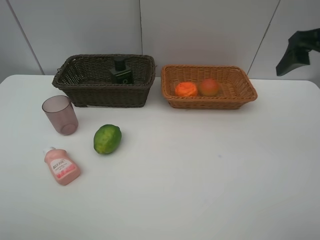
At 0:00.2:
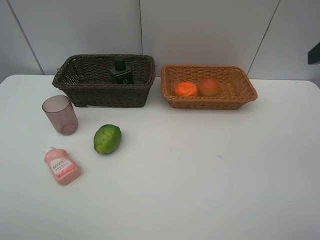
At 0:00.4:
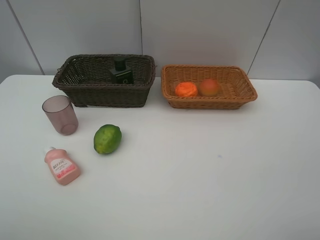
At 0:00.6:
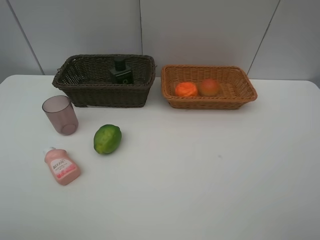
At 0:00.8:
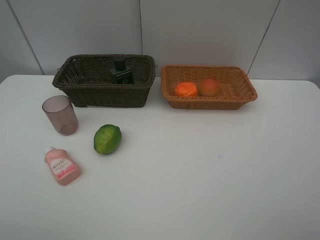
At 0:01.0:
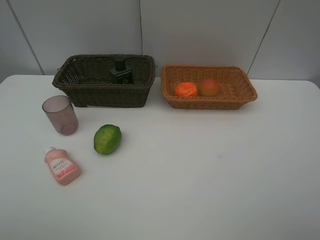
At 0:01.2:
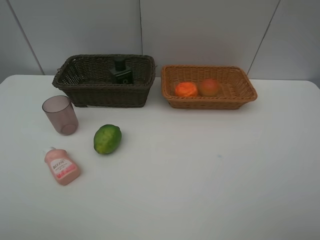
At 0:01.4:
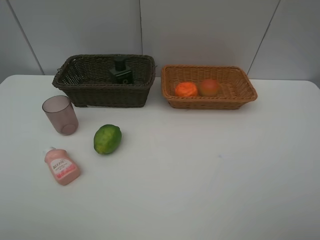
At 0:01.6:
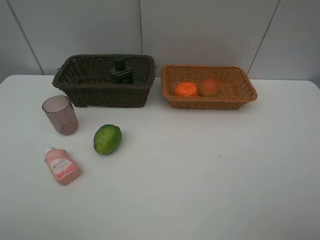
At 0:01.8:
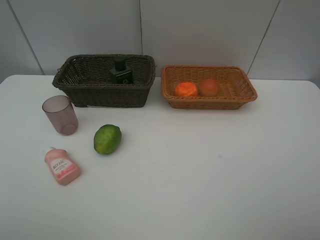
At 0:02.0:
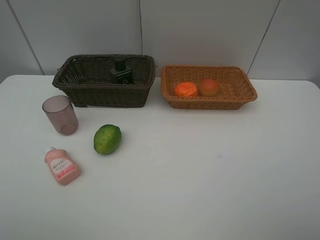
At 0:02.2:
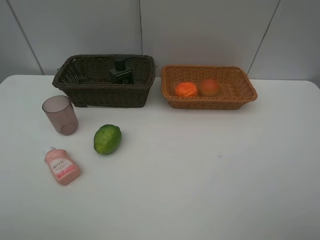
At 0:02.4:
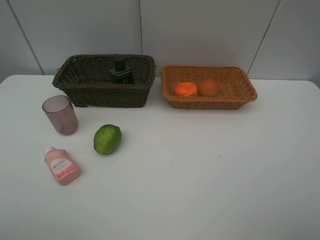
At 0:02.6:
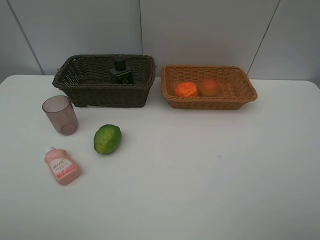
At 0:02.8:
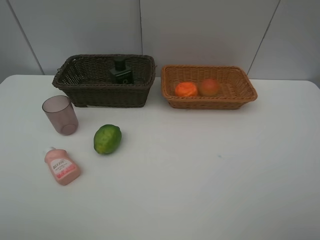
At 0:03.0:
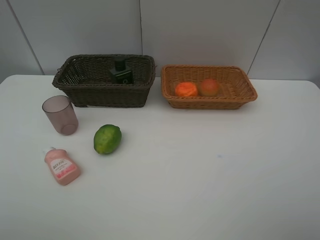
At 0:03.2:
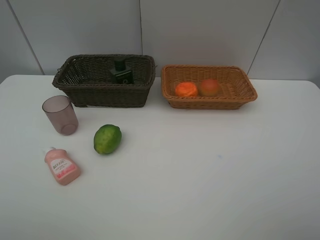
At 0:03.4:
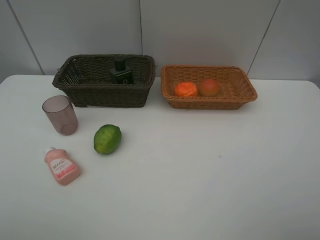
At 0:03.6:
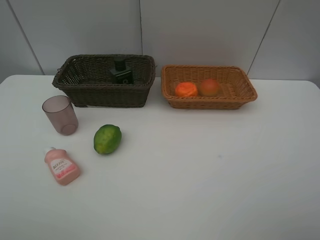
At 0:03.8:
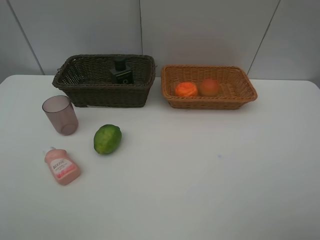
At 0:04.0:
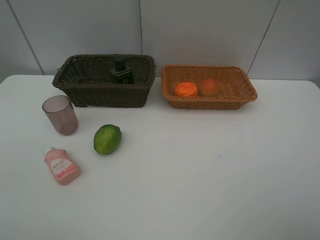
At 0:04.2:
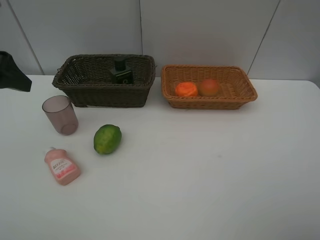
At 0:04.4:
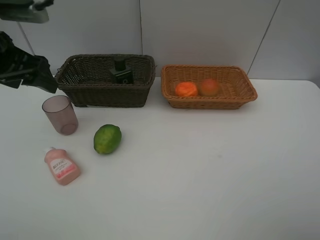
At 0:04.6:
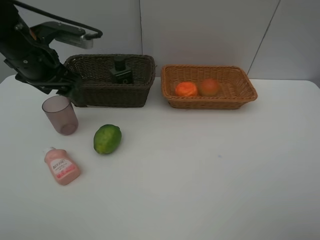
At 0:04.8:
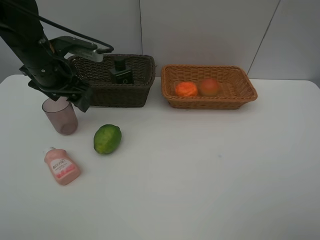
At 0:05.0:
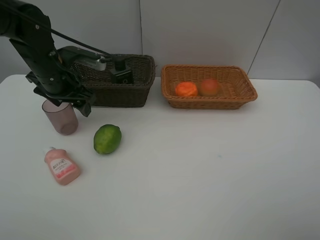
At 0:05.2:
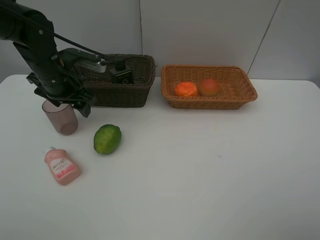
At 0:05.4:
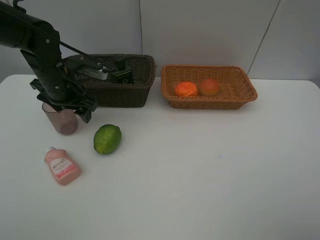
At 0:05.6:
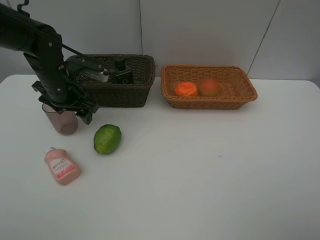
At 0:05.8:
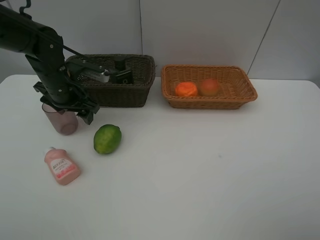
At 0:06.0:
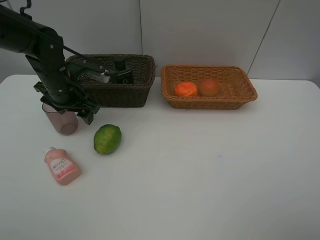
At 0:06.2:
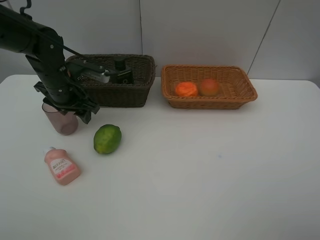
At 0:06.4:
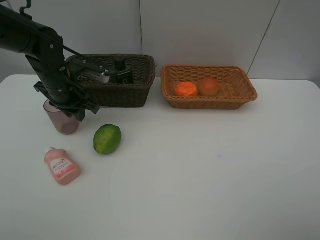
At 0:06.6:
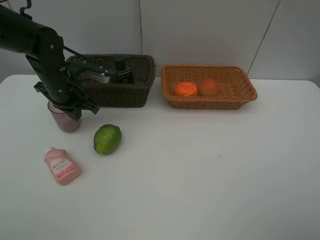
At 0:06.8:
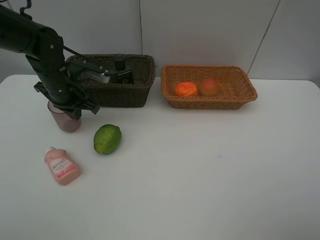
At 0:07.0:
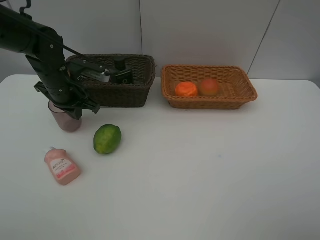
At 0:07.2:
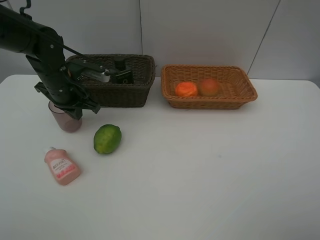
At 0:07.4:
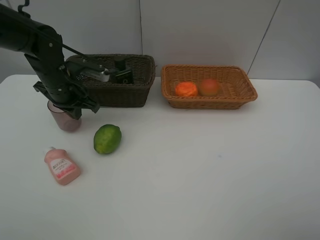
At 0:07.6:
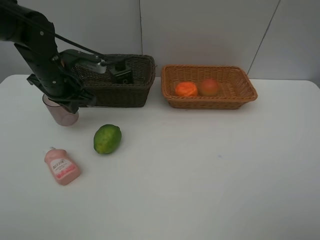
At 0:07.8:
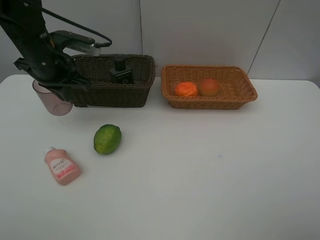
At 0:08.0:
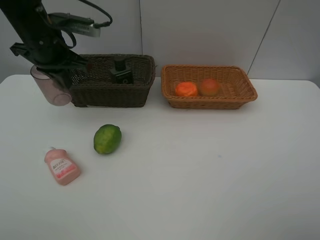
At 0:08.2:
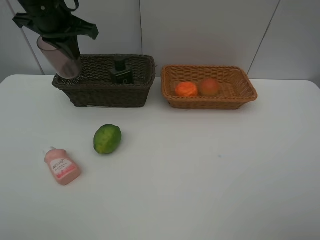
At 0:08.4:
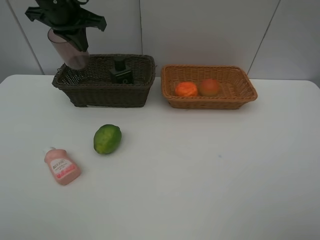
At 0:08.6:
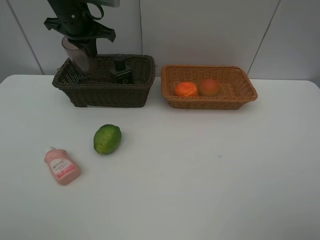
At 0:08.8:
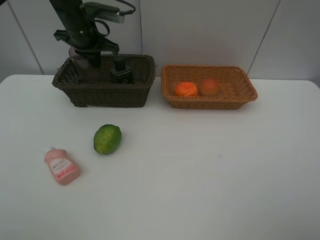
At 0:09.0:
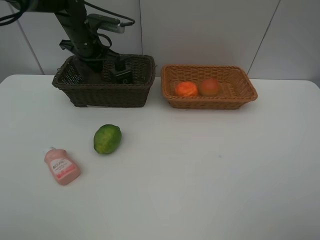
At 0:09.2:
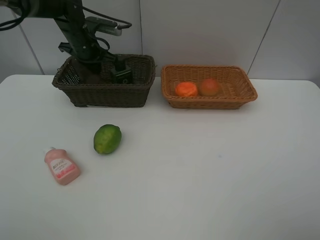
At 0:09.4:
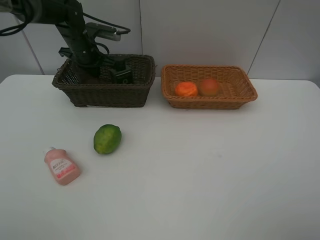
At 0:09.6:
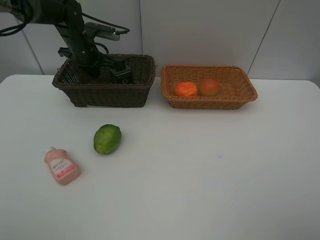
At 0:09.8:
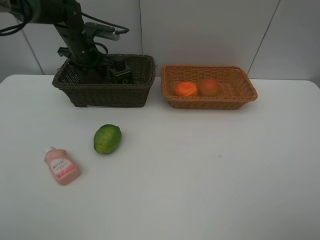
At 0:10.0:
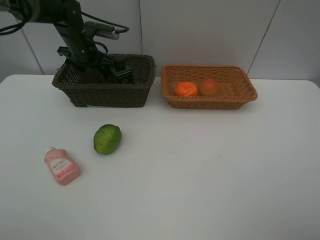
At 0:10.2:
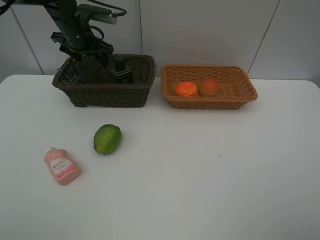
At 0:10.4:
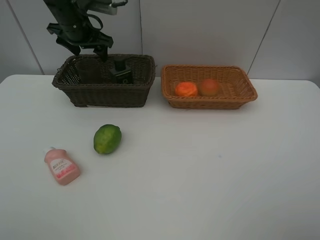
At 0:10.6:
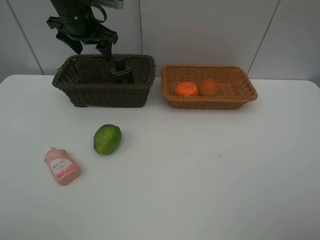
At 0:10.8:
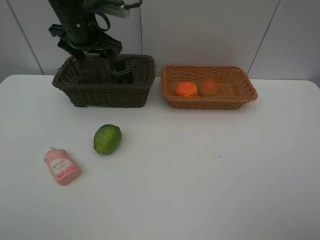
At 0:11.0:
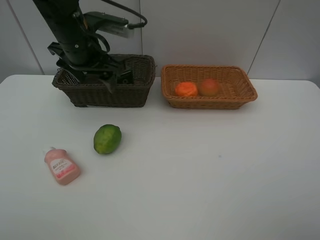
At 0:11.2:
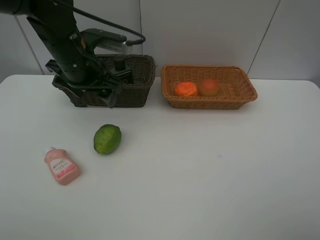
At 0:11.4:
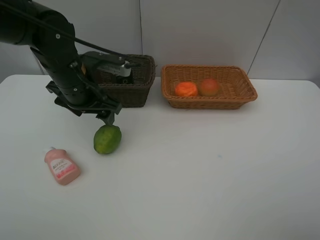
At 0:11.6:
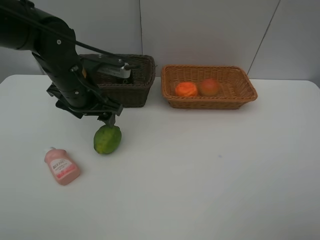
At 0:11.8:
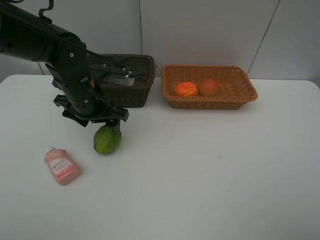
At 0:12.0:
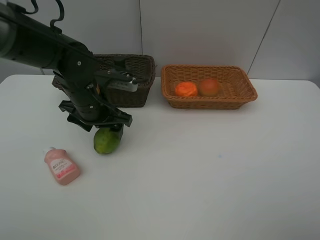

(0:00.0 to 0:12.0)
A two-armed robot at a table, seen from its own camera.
Task of the whole recording: place multiple objects separately in different baskets.
0:00.0 - 0:01.6: The right gripper moves backward, roughly 25 cm.
0:01.6 - 0:03.0: The two grippers keep their place.
0:03.0 - 0:04.4: The left gripper moves forward, some 30 cm.
0:04.4 - 0:06.0: The left gripper shifts some 15 cm downward and forward.
0:06.0 - 0:07.6: The left gripper closes.
0:07.6 - 0:09.0: The left gripper heads forward, covering approximately 15 cm.
0:09.0 - 0:10.4: The left gripper goes roughly 5 cm upward, and opens.
0:10.4 - 0:12.0: The left gripper shifts some 20 cm backward and downward.

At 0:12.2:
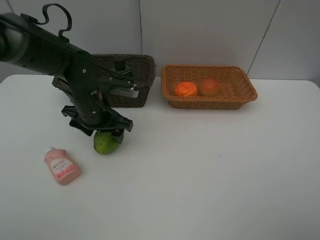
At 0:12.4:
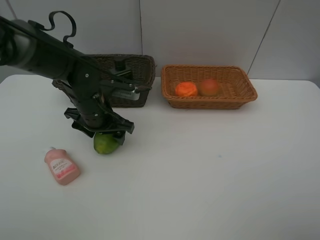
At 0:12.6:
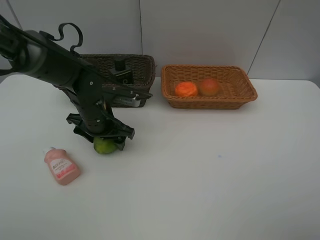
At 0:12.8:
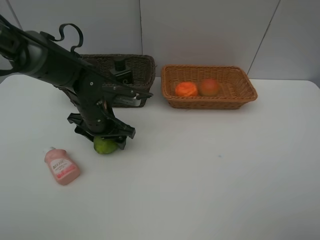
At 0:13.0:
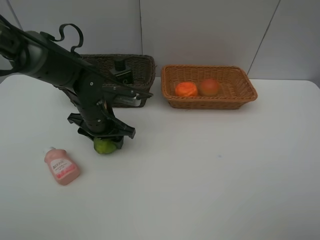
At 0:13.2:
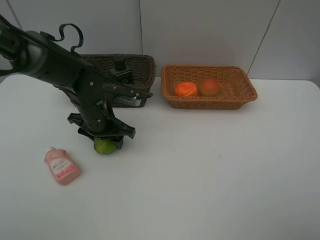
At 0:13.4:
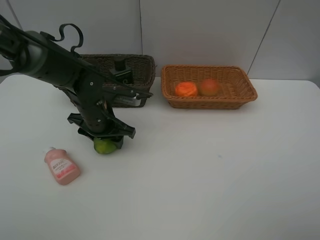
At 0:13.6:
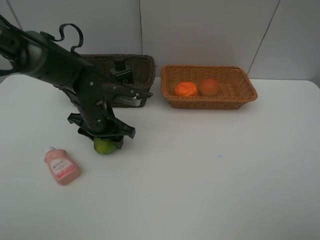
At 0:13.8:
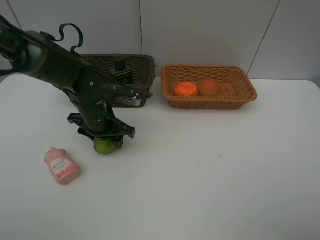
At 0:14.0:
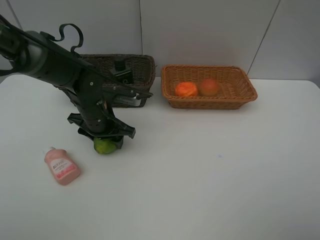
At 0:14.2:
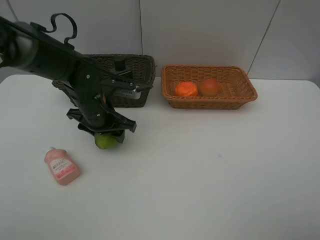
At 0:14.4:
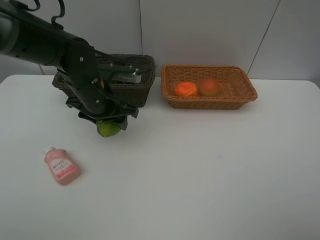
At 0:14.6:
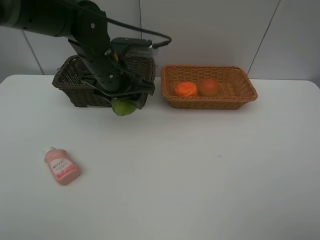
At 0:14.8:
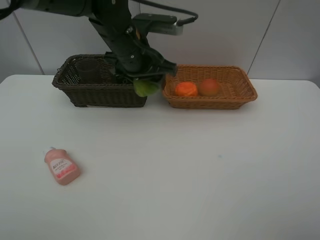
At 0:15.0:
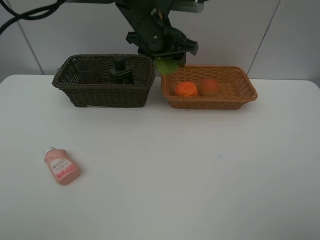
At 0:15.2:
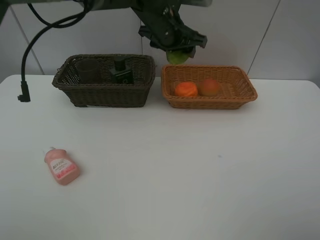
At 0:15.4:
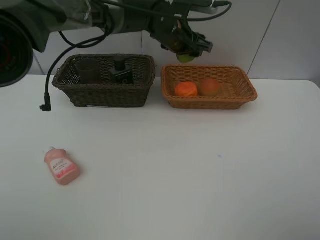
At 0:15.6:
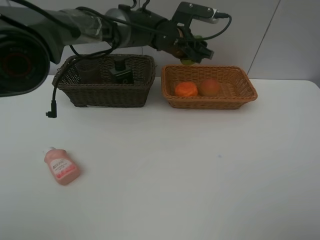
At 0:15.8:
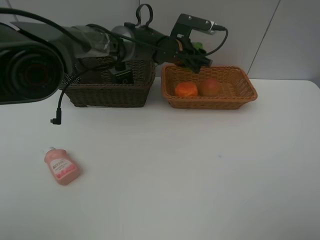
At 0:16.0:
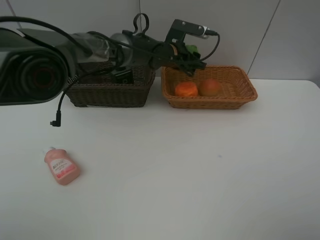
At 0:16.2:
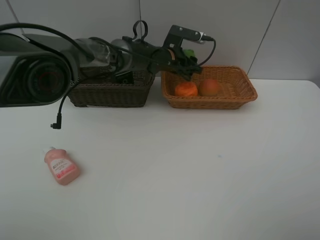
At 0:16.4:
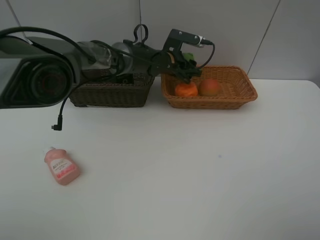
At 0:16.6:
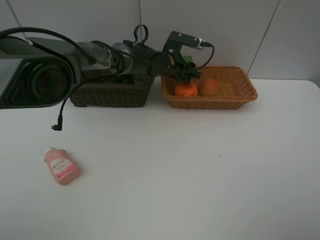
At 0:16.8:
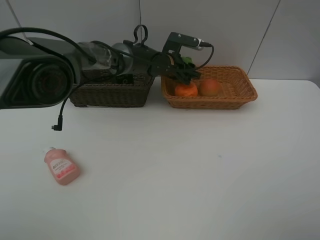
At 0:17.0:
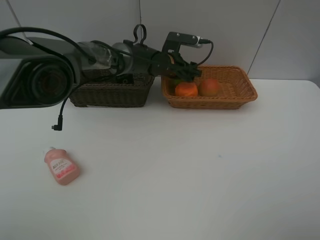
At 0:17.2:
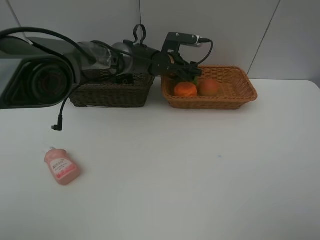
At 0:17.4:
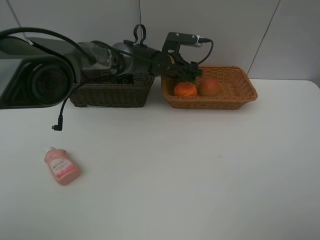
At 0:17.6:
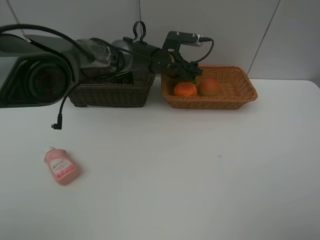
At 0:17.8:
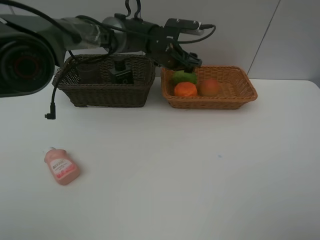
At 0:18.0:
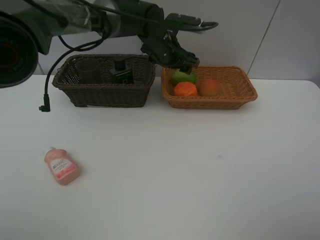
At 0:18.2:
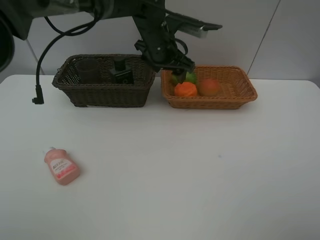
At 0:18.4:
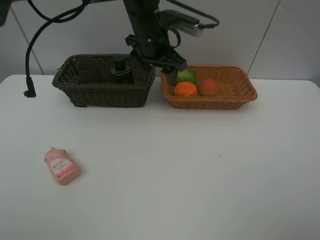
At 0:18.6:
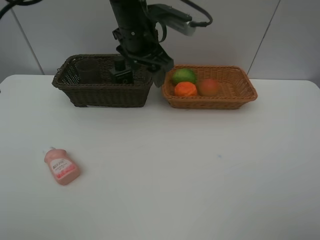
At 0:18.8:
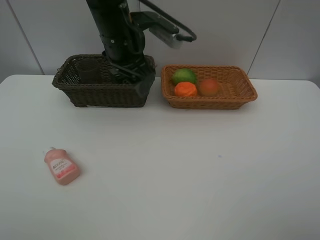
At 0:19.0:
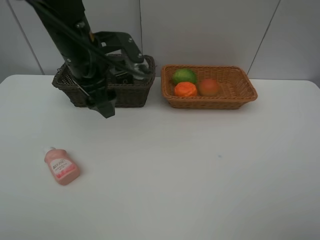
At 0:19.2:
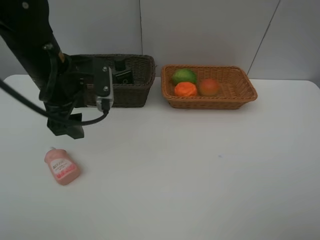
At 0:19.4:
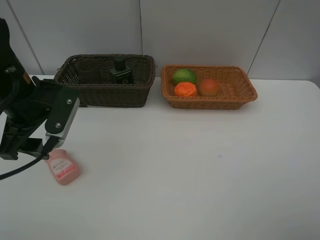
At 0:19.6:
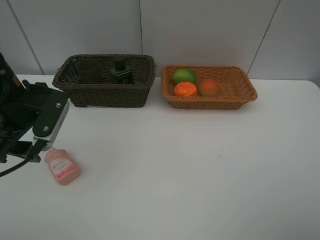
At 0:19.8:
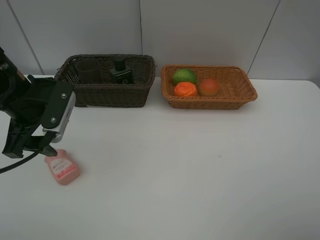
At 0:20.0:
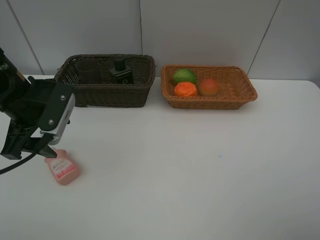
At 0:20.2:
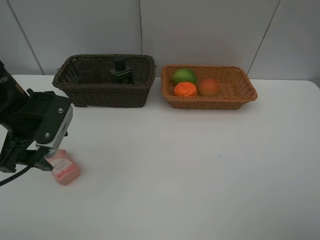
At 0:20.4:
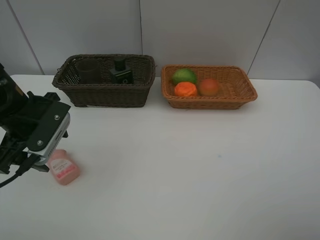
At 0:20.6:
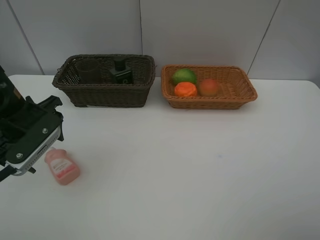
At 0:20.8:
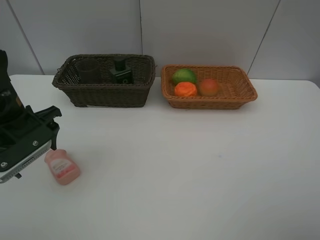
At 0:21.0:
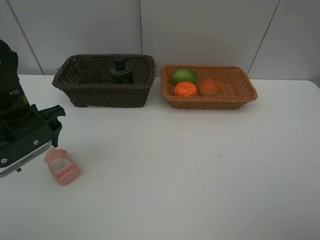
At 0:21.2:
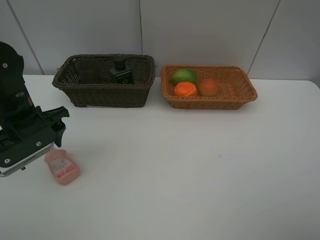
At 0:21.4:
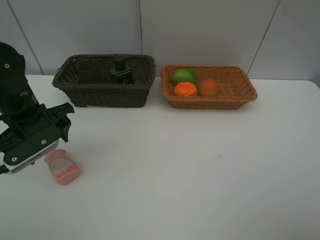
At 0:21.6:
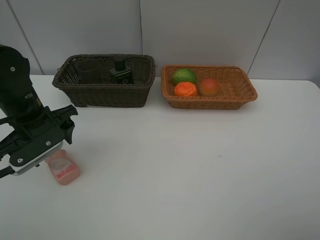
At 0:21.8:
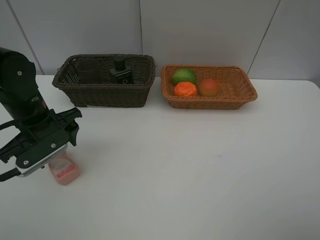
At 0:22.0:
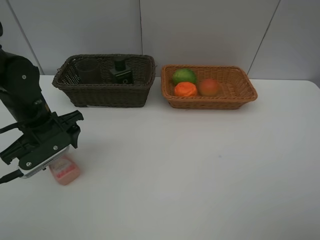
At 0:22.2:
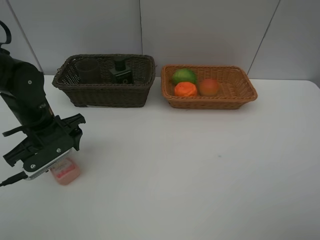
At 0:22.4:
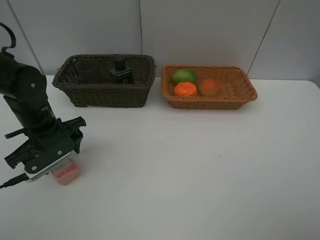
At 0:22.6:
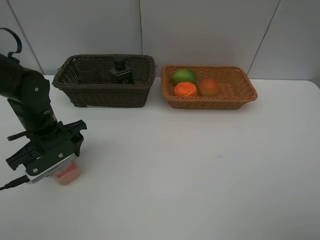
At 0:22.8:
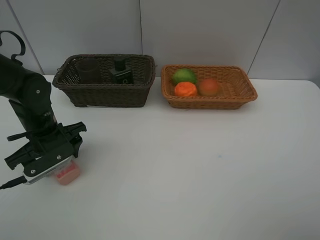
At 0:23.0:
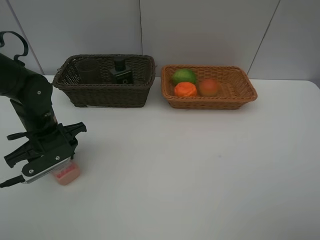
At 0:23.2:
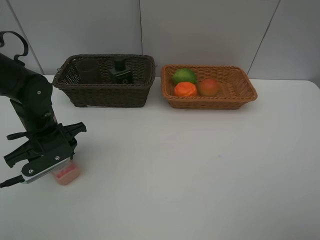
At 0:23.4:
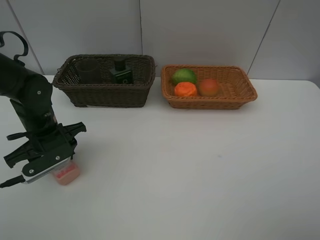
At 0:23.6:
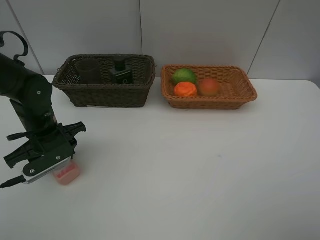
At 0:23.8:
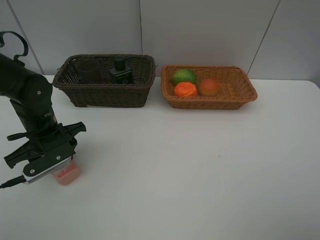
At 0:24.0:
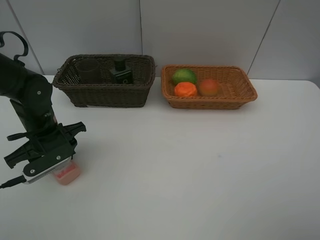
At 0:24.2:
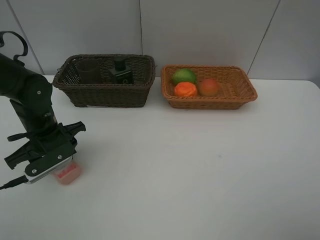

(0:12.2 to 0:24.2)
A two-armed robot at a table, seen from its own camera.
Task of the whole recording: place multiple objects separately in different baskets.
0:12.2 - 0:13.8: The grippers make only small movements.
0:13.8 - 0:15.2: The left gripper travels upward, to the right and forward by about 25 cm.
0:15.2 - 0:16.6: The left gripper shifts some 15 cm downward.
0:16.6 - 0:18.2: The left gripper shifts some 10 cm upward and backward.
0:18.2 - 0:19.8: The left gripper travels to the left and backward by roughly 25 cm.
0:19.8 - 0:21.2: The left gripper ends up approximately 5 cm from where it was.
0:21.2 - 0:22.6: The left gripper moves downward, roughly 5 cm.
0:22.6 - 0:24.2: Both grippers stay put.
